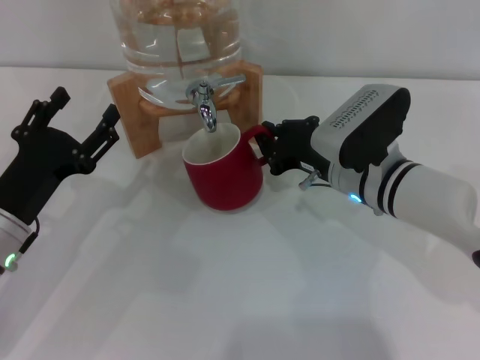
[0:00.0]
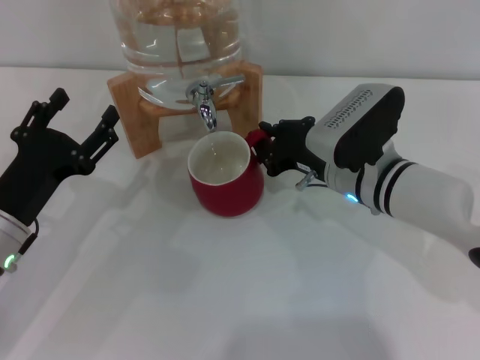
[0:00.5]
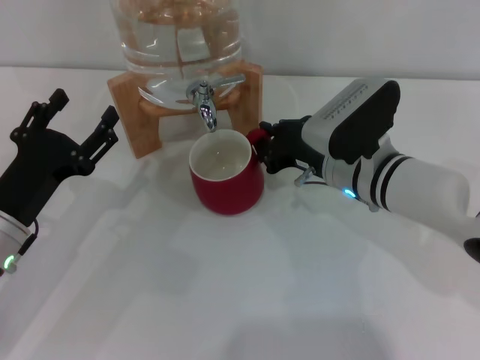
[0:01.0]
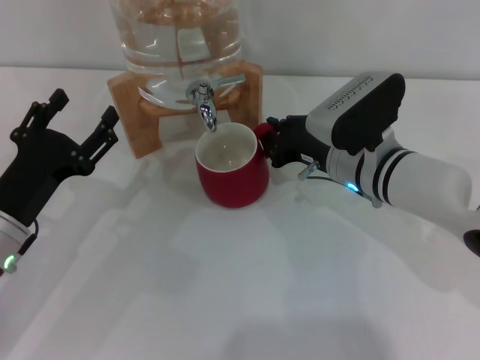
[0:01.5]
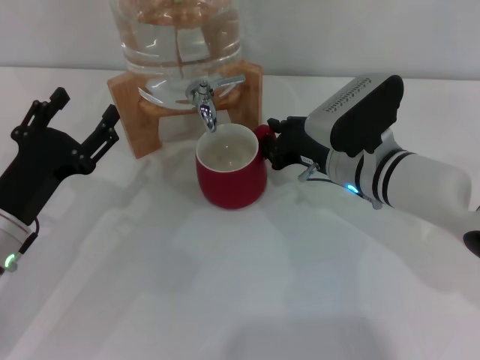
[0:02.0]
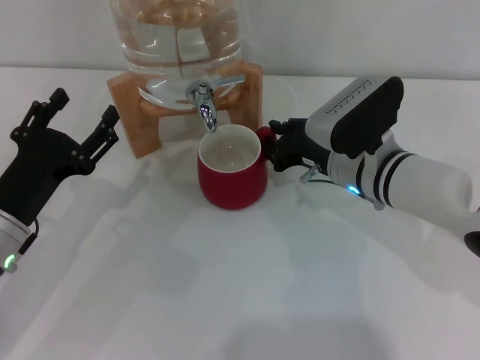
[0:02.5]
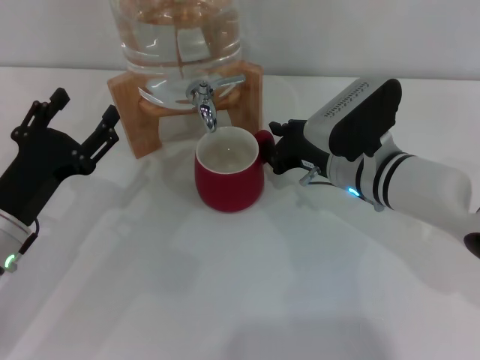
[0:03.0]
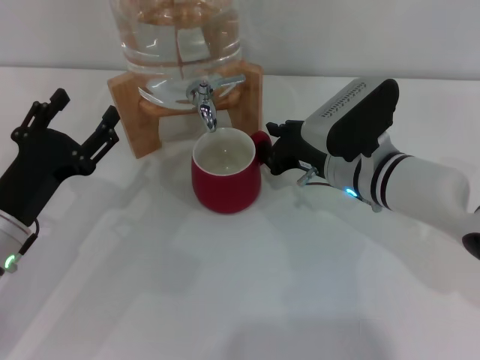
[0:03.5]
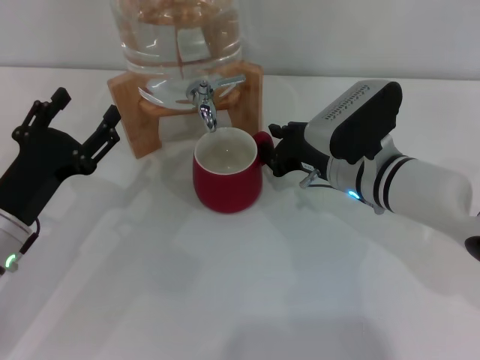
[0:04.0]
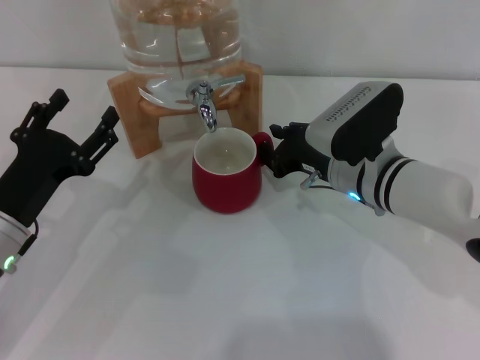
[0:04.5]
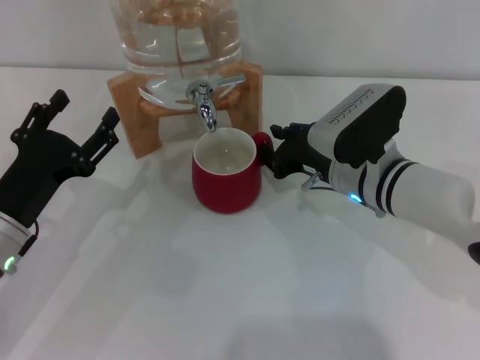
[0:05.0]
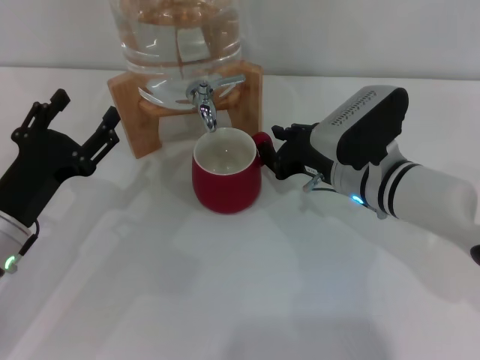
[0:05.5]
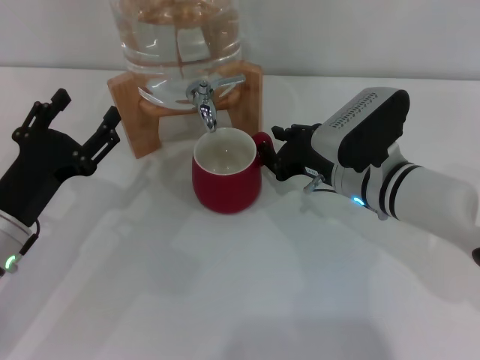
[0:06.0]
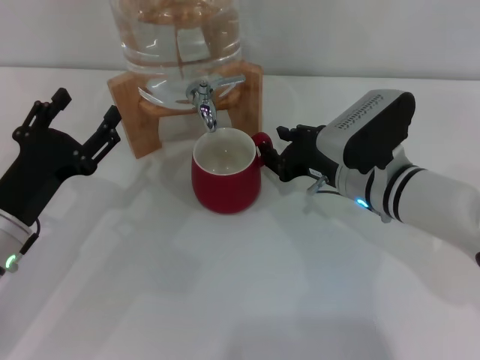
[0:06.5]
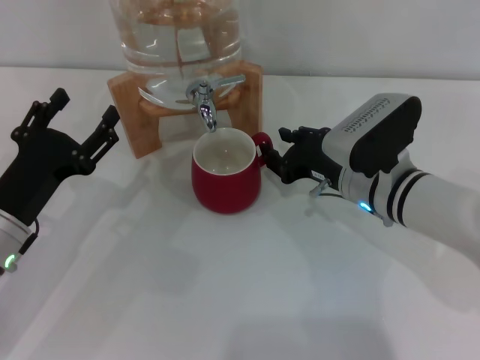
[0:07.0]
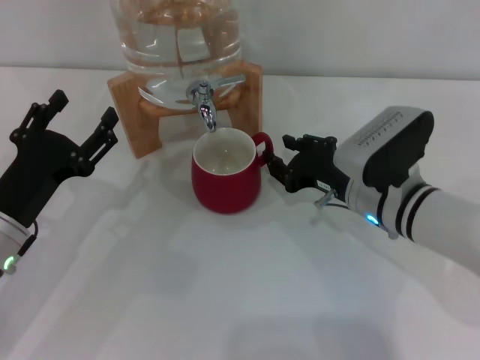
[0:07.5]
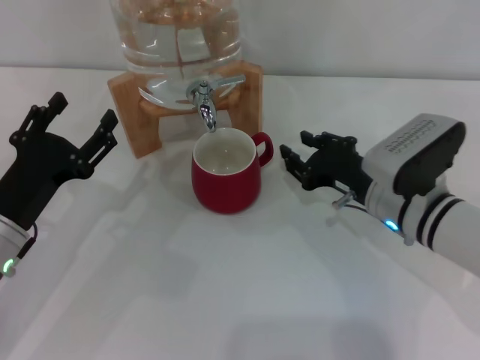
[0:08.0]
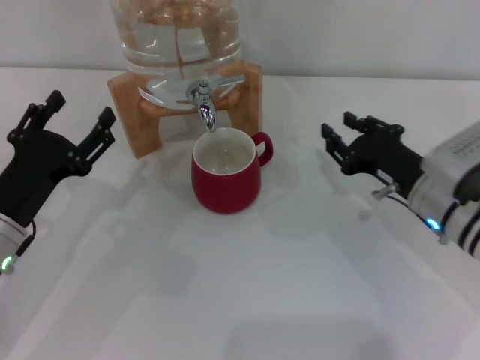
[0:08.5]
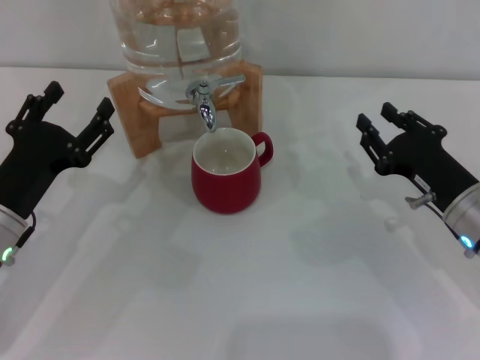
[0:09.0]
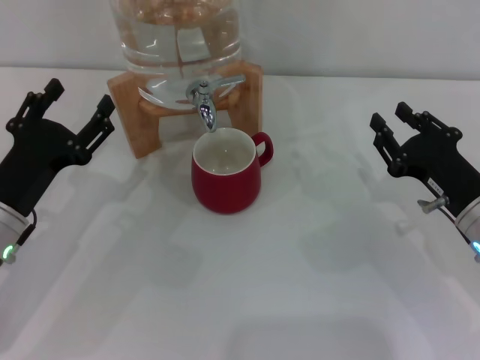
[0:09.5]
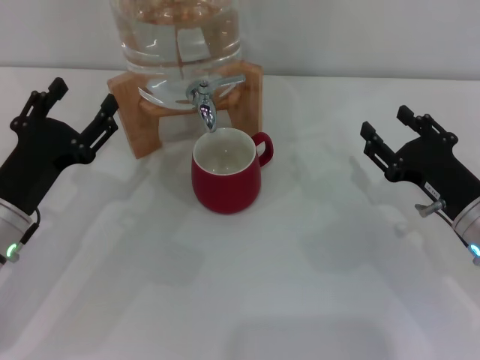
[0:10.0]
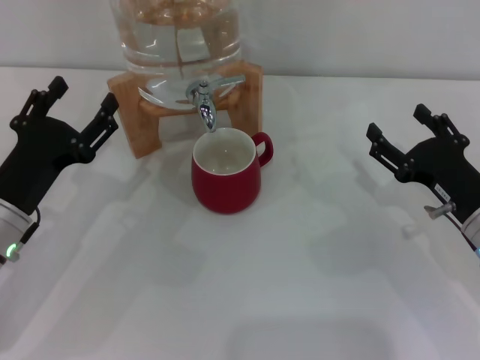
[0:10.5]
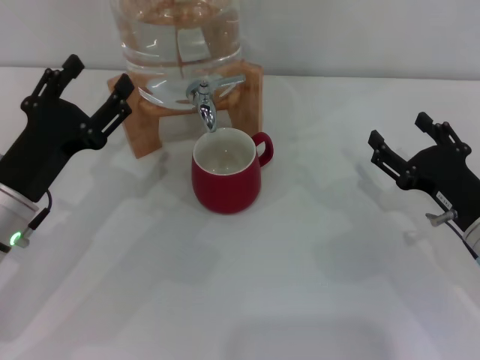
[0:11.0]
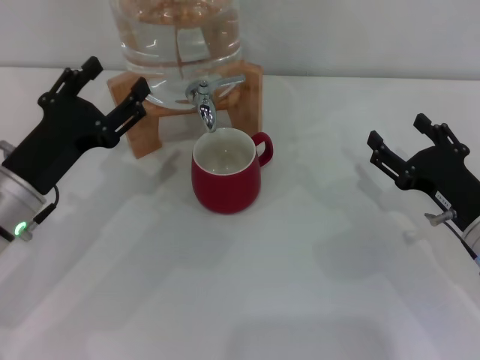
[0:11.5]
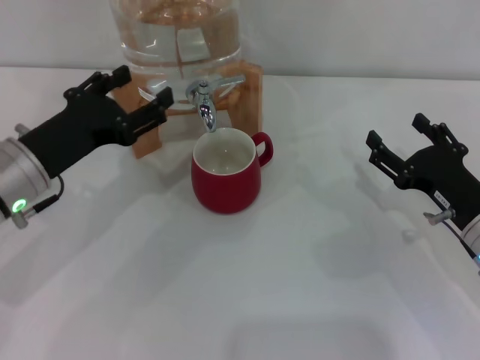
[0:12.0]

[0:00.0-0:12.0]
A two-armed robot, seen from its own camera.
Task of the whole recording: the right gripper pick up the red cup and place it horizontally under the faucet, the left gripper turn on the faucet to fill the cup, and then turn off the faucet.
Step, 0.0 to 7.5 s: Move the cup beneath the water dispenser nozzle with the right gripper.
0.0 to 2.0 s: Both grippers stay put.
2.0 to 6.0 s: Neither gripper changes place.
6.0 to 8.0 s: The grippers make only small movements.
8.0 to 10.0 s: The right gripper shifts approximately 10 cm to the right.
10.0 to 12.0 s: The right gripper opens up. Meanwhile the left gripper shifts approximately 5 cm upward.

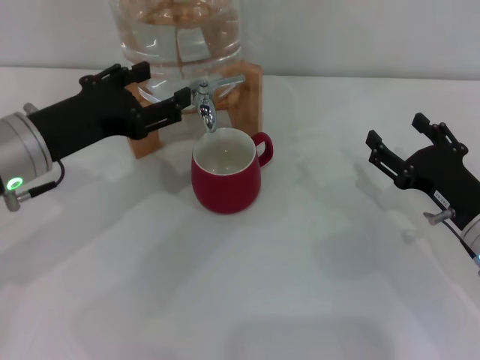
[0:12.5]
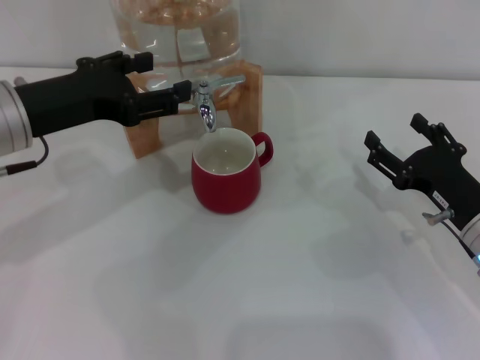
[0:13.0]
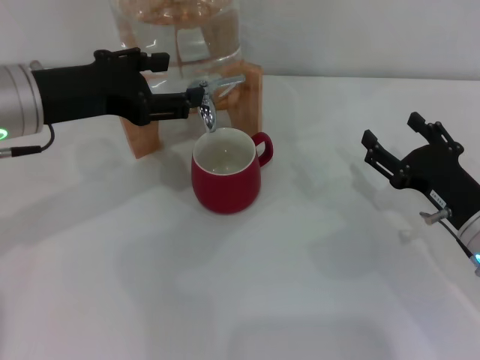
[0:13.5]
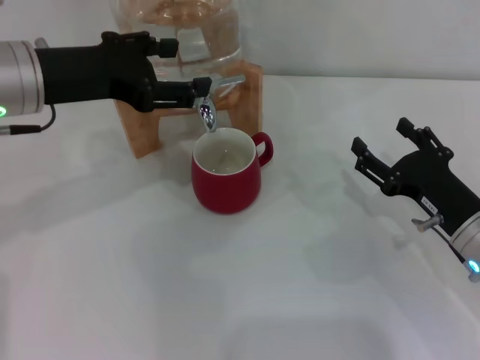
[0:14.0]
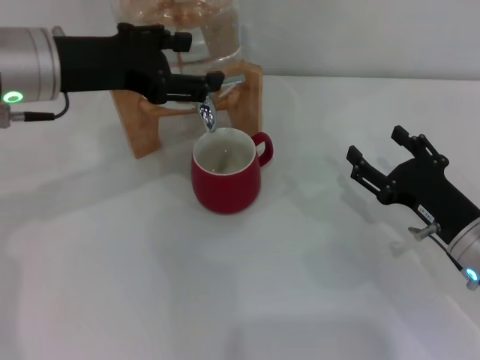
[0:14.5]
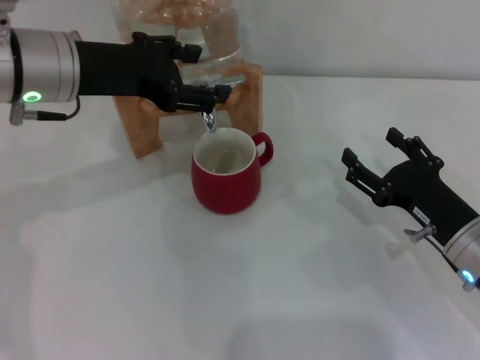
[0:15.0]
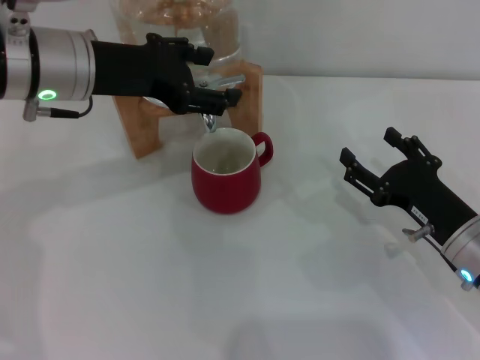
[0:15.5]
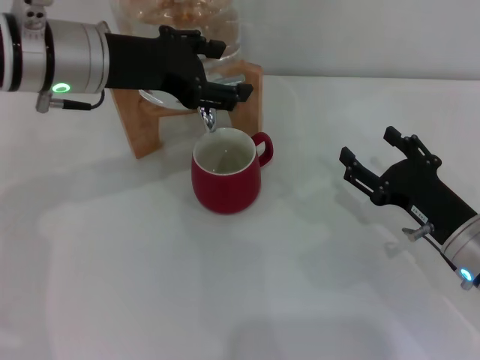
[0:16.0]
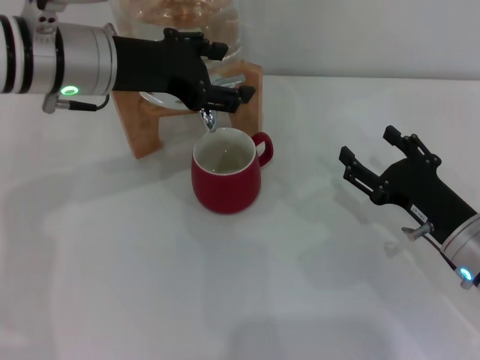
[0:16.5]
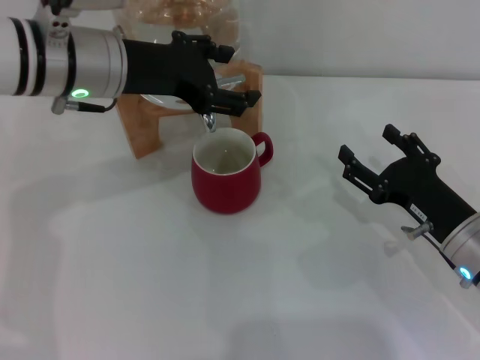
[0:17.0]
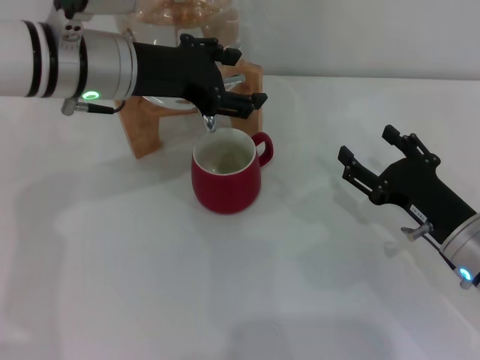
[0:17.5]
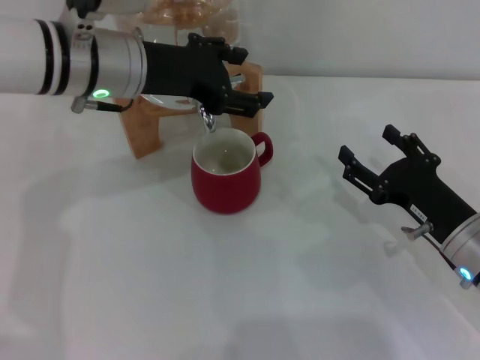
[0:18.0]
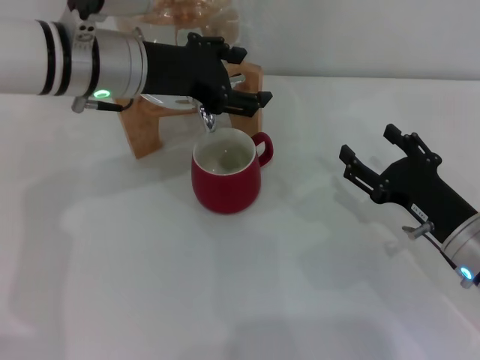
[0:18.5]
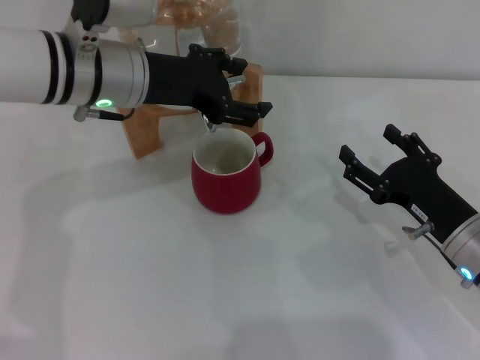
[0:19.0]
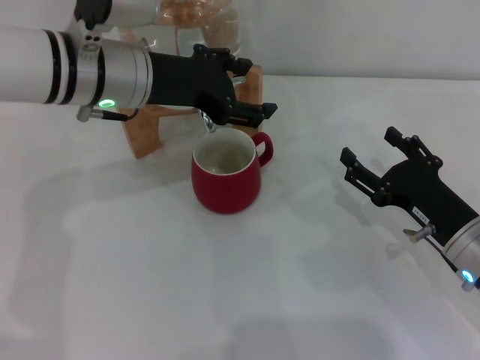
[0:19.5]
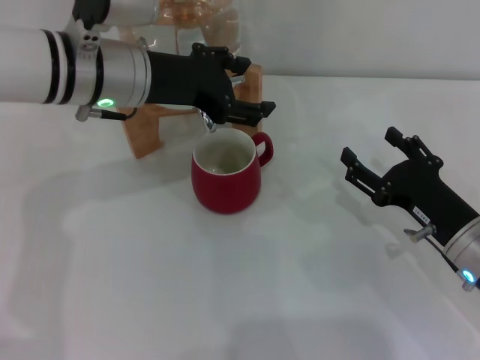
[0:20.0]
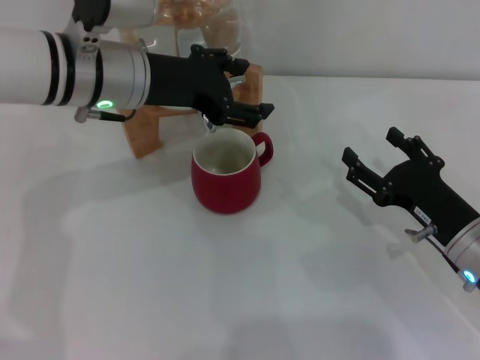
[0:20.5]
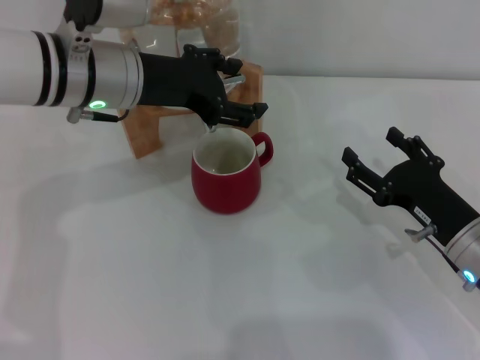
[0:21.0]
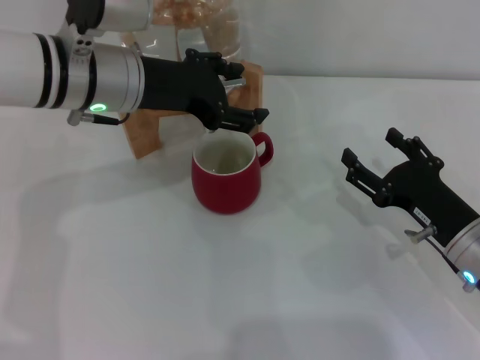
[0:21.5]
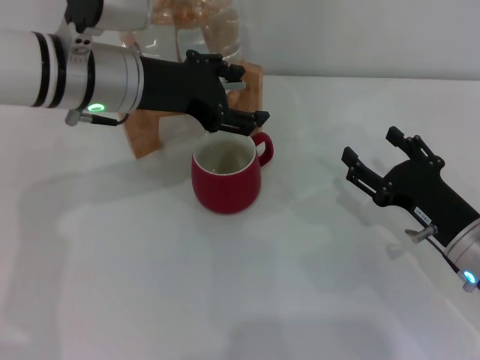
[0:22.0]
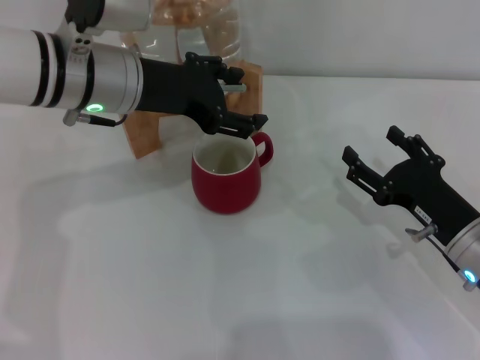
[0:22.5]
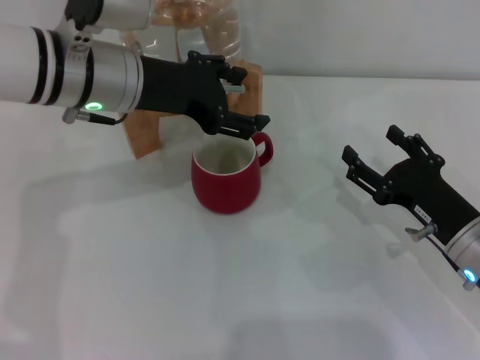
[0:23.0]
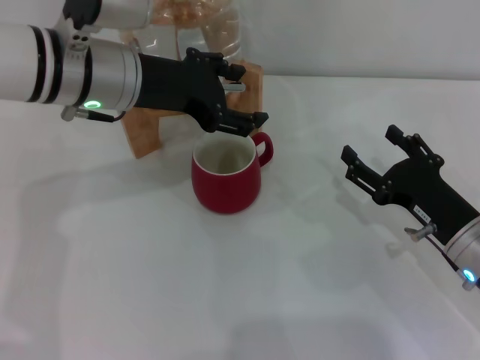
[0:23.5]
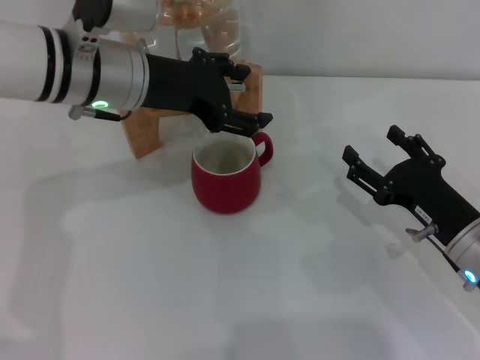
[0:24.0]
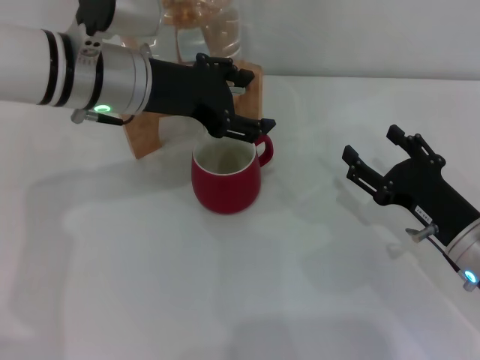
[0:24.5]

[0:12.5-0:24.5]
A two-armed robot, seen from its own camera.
Task of the whole recording: the right gripper pick up the red cup and place it horizontally under the faucet, the left gripper turn on the faucet to fill the cup, and then turn off the faucet.
12.5 to 14.5 s: The left gripper travels upward by approximately 5 cm.
14.5 to 16.5 s: The grippers make only small movements.
16.5 to 18.5 s: There are only small adjustments of the grippers.
18.5 to 22.5 s: Both grippers stay put.
22.5 to 24.5 s: The two grippers keep their place.

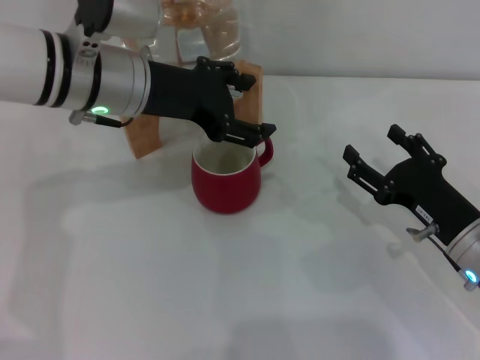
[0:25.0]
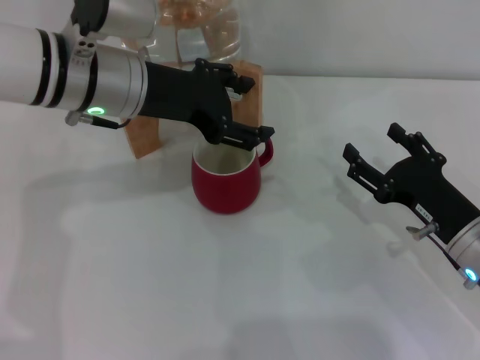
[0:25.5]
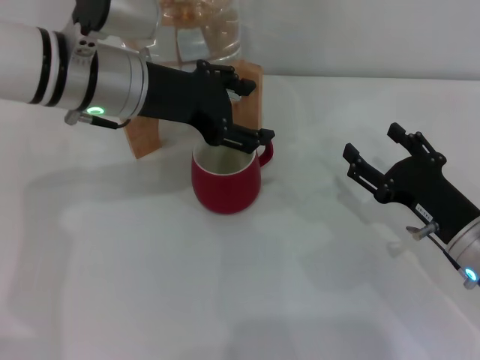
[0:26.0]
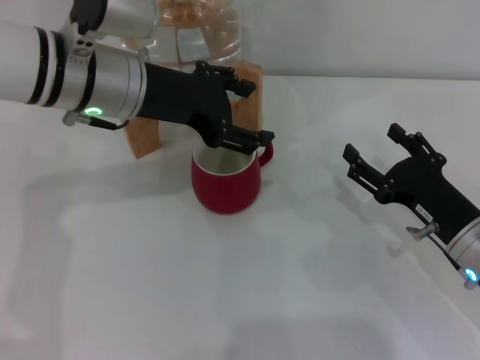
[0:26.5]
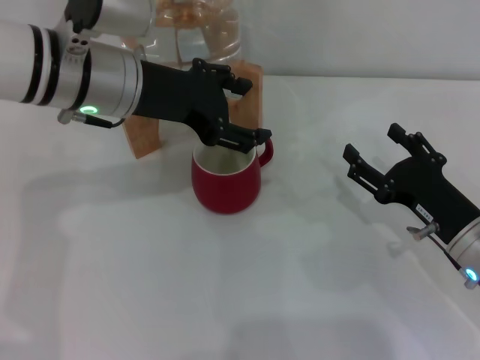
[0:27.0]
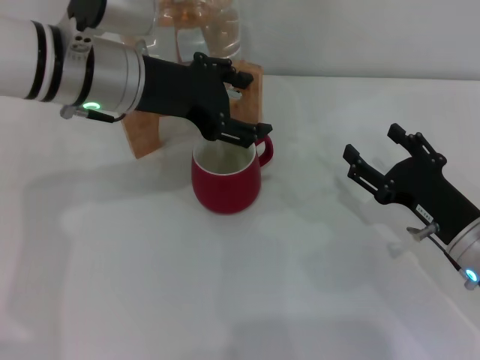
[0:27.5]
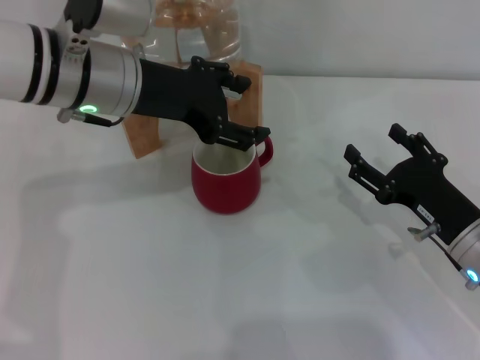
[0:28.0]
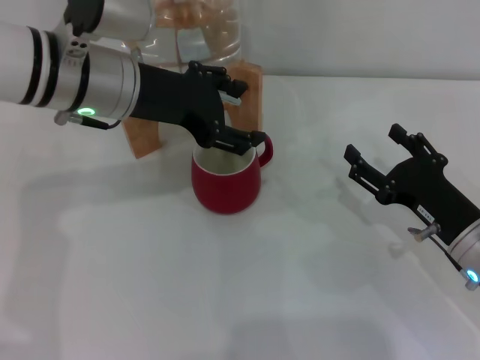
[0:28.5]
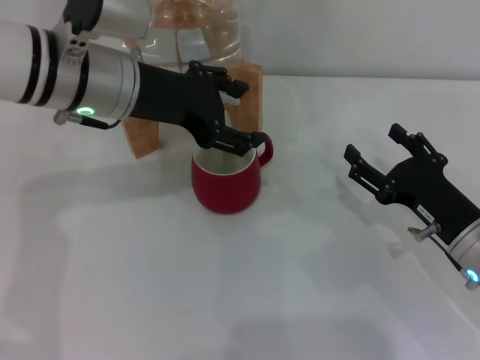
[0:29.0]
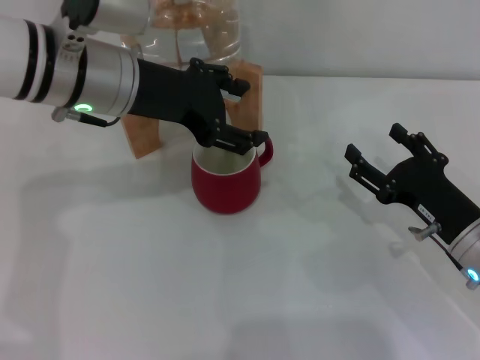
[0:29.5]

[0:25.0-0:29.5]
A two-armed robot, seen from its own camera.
Task of the whole recording: the right gripper pick up the red cup and place it horizontally under the faucet, the left gripper turn on the faucet to fill the cup, and then turn off the faucet.
25.0 to 27.0 s: The two grippers keep their place.
27.0 to 29.5 s: Both grippers stay about where they are.
